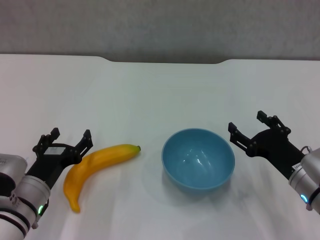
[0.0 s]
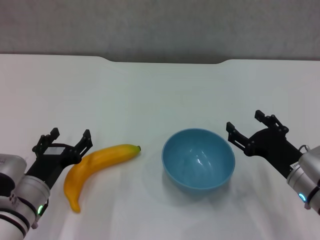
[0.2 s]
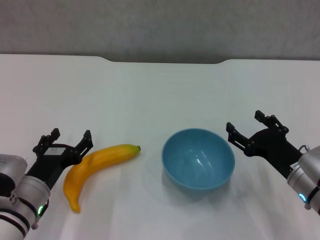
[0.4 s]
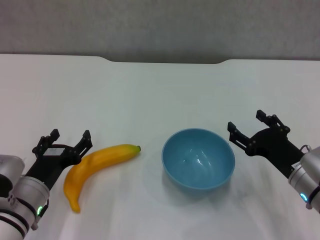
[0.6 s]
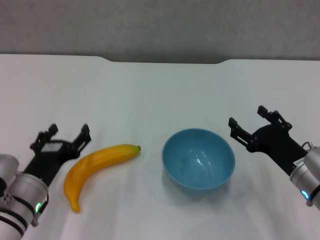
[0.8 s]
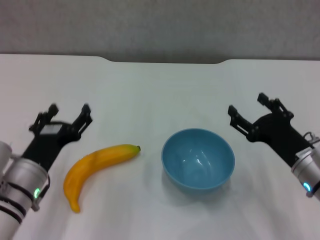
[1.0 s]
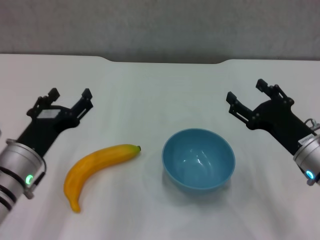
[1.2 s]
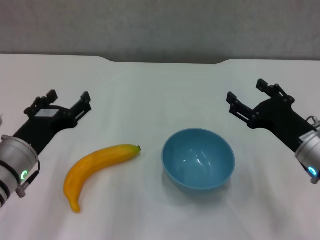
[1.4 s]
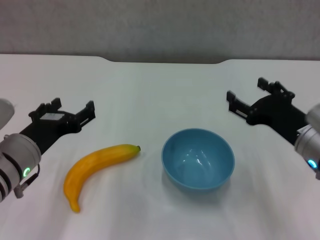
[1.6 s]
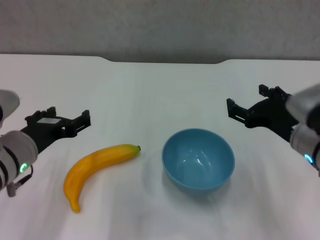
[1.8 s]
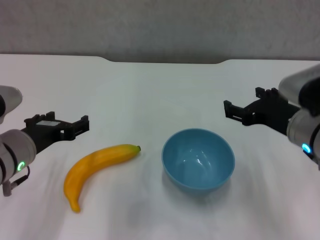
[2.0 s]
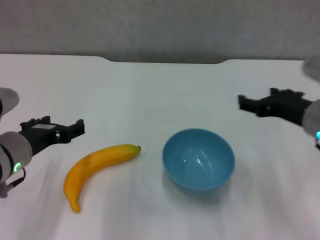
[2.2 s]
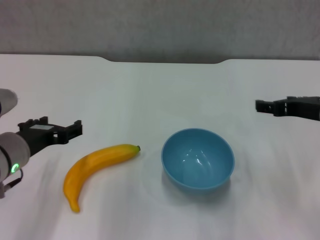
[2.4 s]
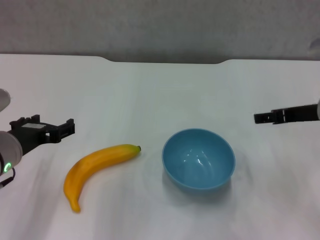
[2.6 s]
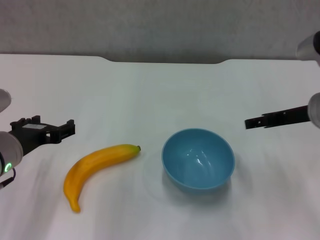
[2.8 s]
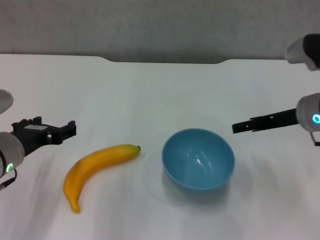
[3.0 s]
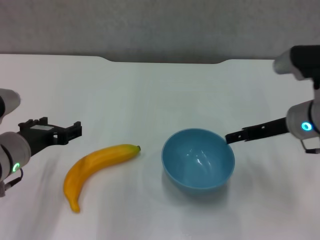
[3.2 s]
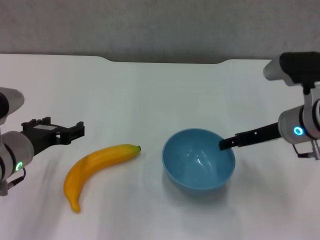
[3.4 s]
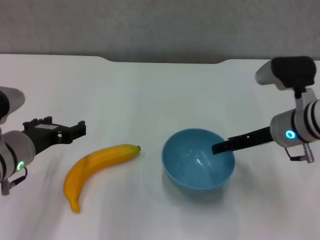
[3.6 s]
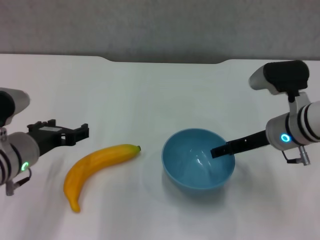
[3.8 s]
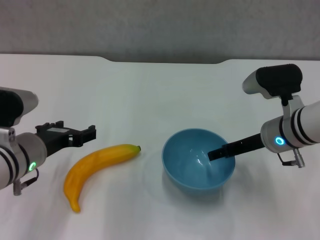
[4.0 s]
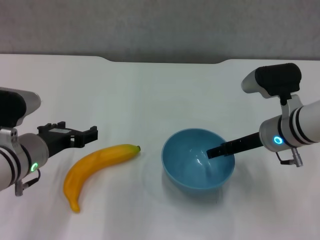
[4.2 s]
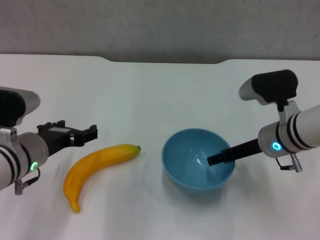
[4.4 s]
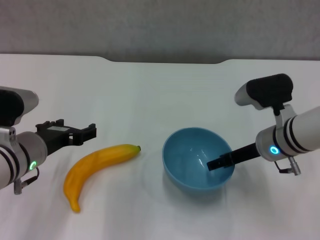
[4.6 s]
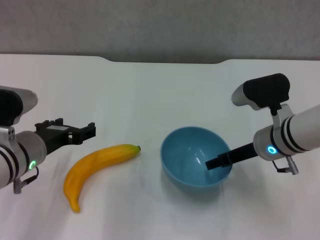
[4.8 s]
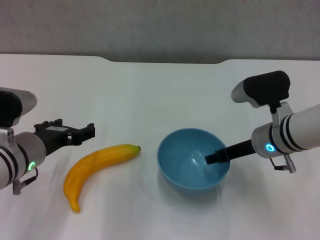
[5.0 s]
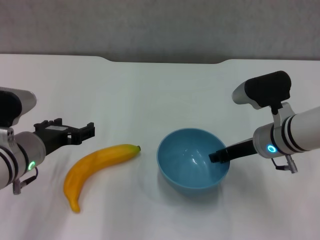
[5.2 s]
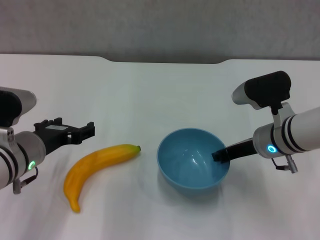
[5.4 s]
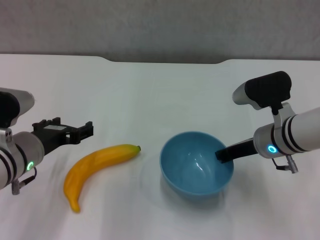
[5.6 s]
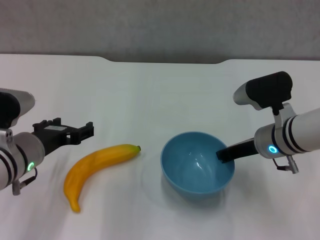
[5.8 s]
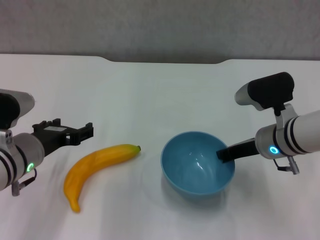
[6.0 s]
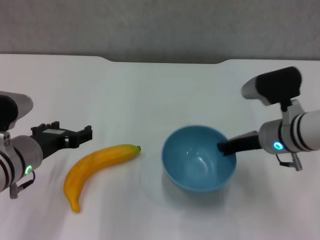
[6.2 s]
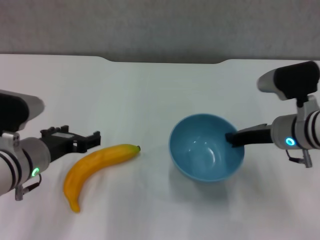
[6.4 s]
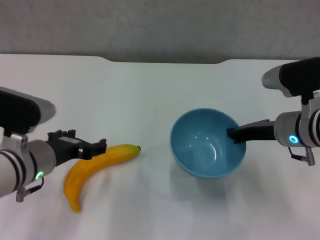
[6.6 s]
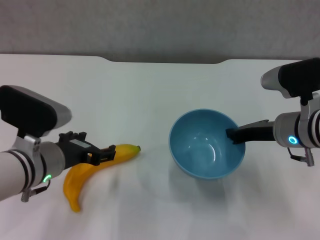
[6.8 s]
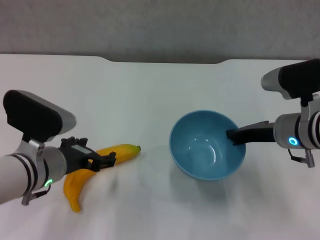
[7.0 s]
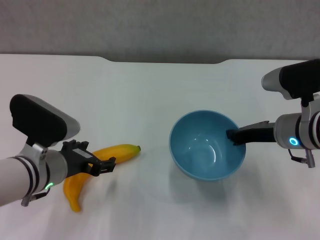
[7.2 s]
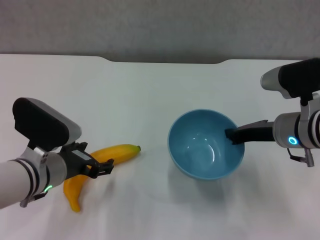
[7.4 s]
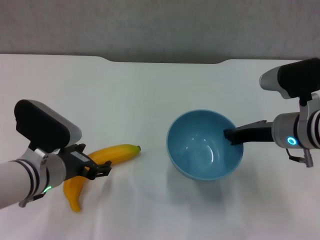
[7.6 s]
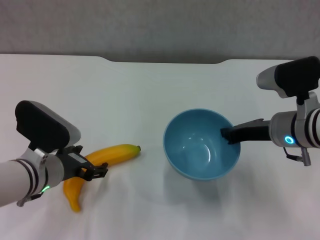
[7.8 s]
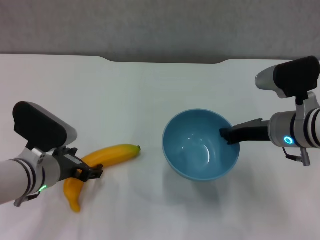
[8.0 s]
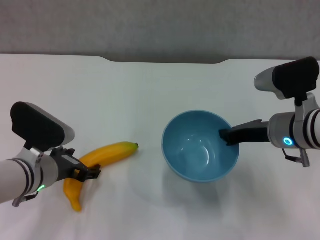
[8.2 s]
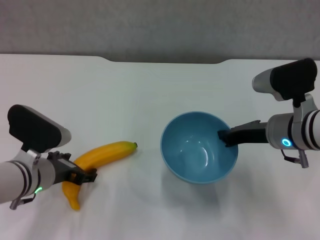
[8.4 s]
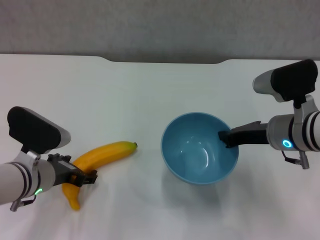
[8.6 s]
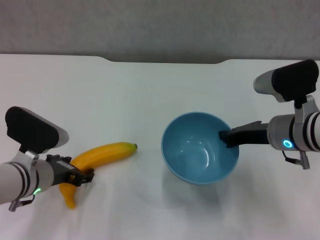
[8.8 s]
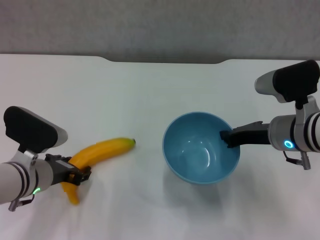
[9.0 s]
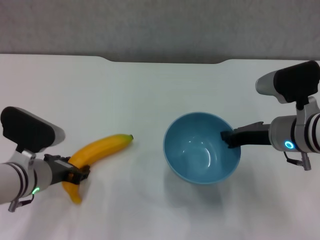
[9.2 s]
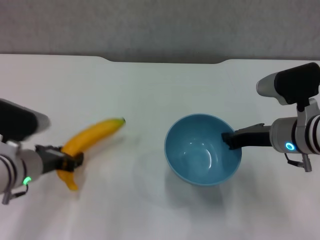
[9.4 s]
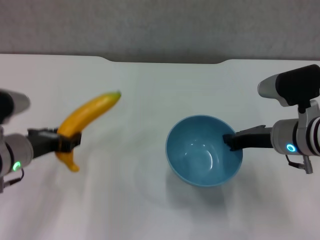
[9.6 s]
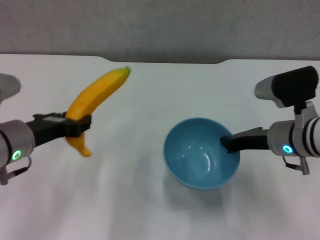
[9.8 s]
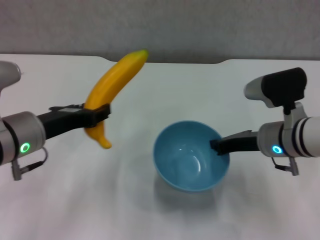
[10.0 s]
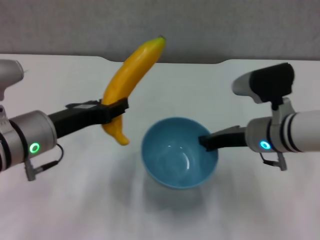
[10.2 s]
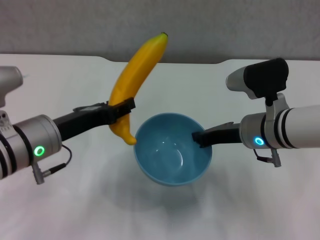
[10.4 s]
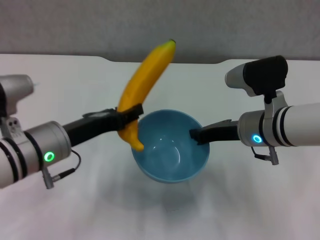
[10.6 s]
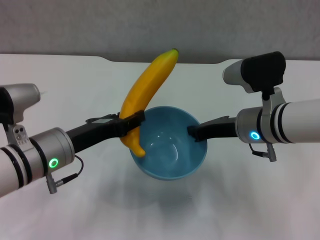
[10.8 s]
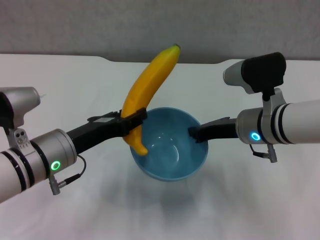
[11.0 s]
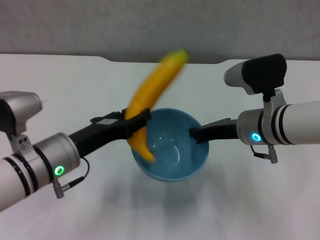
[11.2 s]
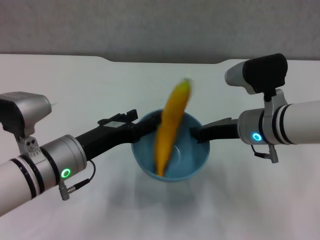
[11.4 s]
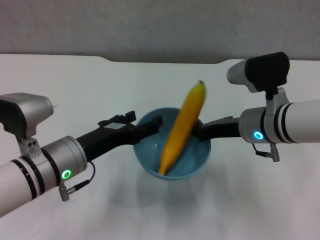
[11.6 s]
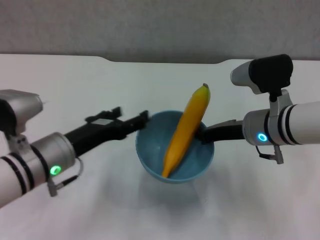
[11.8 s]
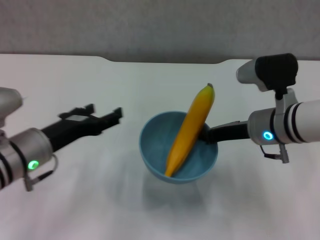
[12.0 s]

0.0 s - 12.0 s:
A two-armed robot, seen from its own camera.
Step, 0.0 s - 5.6 s: Grasp the blue bowl with right gripper.
Step, 5.8 s - 6.6 s: Lift the blue bowl with right gripper.
Step, 6.8 s - 9.0 s: Grasp the banana with left gripper.
Step, 9.2 s - 11.2 s: Place the banana in the blue bowl with left gripper.
0.0 s - 1.6 s: The grippers both shift upward by approximately 10 cm.
1.6 s - 3.0 s: The right gripper shifts approximately 5 cm forward.
3.0 s - 4.4 s: The right gripper is displaced downward by approximately 5 cm.
4.4 s - 6.0 s: The right gripper closes up.
7.6 s - 9.0 s: There are only small adjustments of the grippers.
9.0 s - 10.4 s: The left gripper travels upward by approximately 10 cm, and closes up.
10.4 s - 12.0 s: The left gripper opens up.

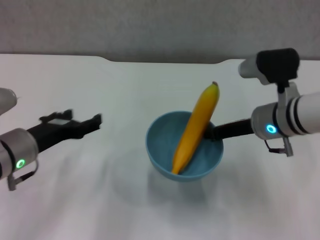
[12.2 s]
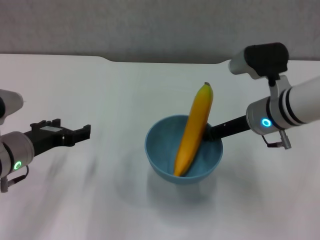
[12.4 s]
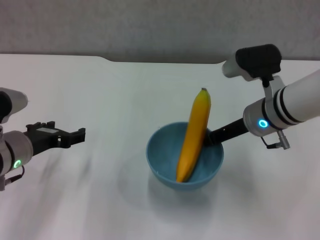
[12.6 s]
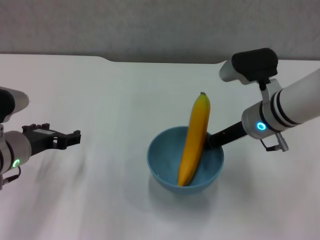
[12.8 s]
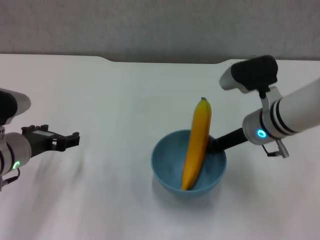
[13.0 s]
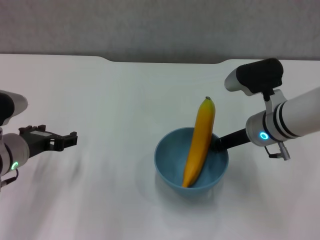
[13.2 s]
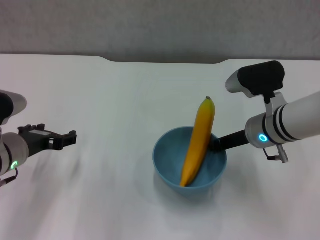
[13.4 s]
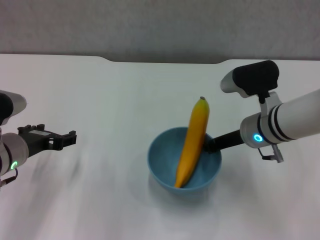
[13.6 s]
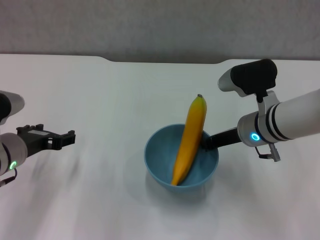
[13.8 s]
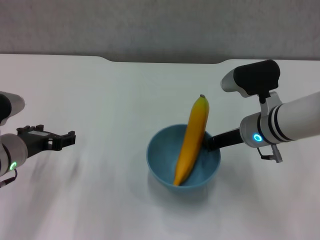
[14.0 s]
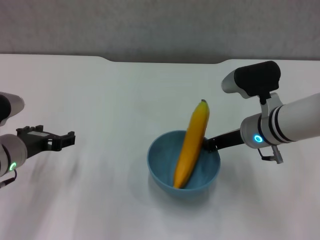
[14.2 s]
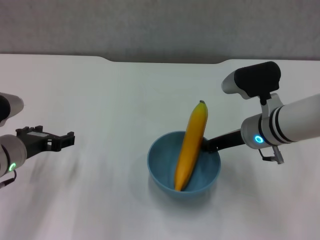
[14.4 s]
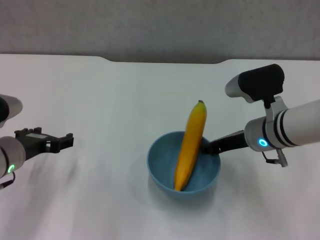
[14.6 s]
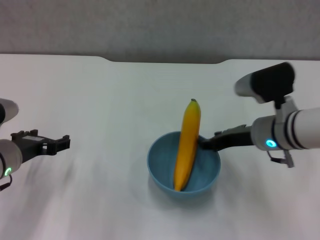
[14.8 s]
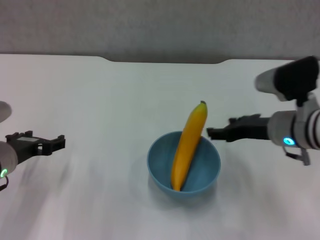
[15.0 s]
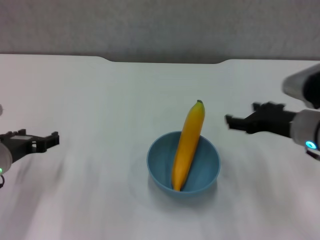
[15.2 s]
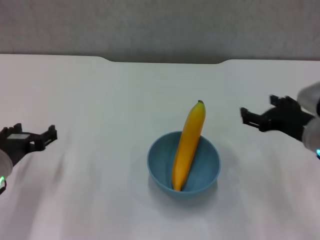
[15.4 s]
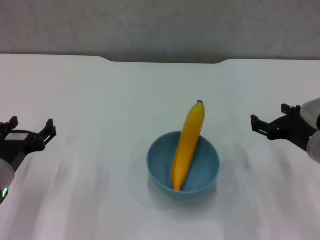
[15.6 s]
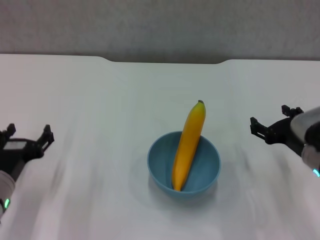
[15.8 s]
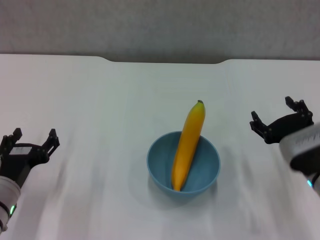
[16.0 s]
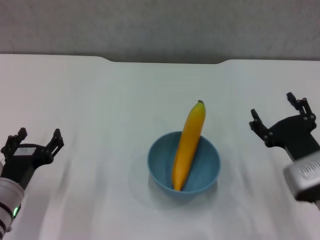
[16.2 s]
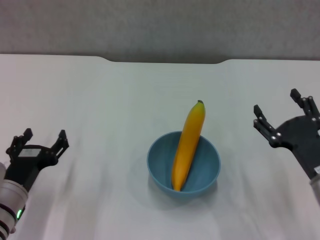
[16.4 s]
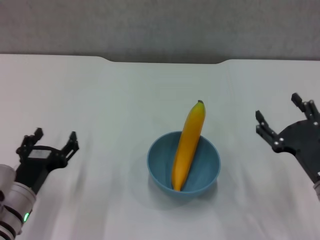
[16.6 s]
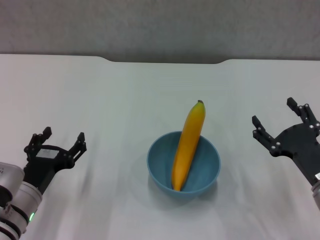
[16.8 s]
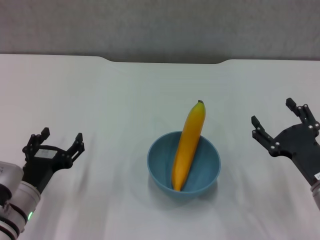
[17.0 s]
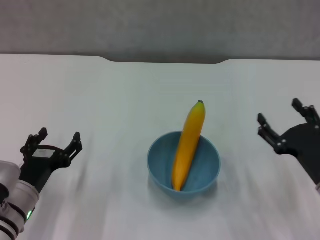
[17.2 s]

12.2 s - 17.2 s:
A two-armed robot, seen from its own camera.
Step, 12.2 s - 14.8 s: Place the bowl on the table with right gripper.
12.2 s - 13.8 s: The grippers make only small movements.
13.8 s - 15.6 s: The left gripper shifts by approximately 5 cm; the right gripper moves to the right and backward, roughly 10 cm, and opens its fingers.
15.6 s - 17.2 s: The right gripper travels backward and downward by approximately 10 cm. Meanwhile the left gripper ends up approximately 5 cm from where it was.
